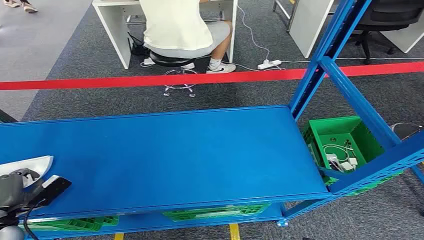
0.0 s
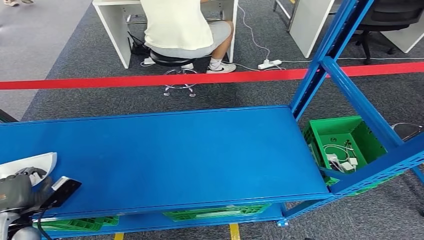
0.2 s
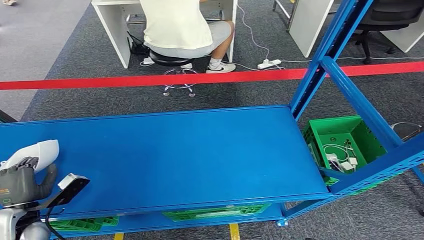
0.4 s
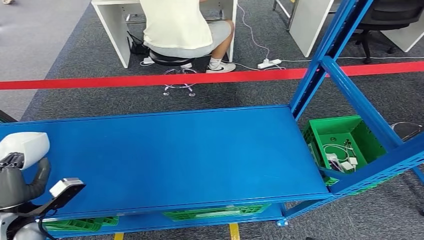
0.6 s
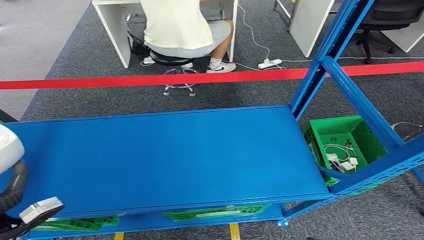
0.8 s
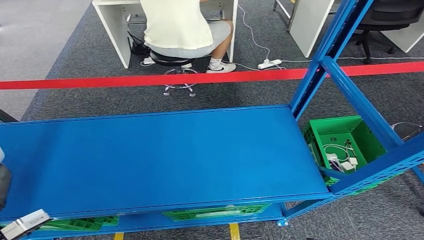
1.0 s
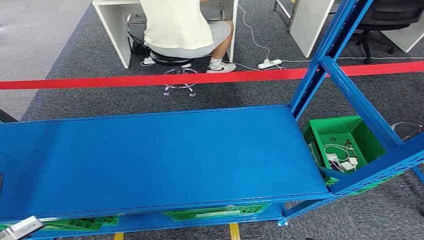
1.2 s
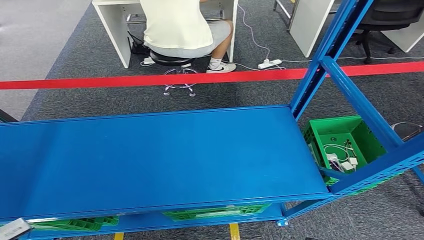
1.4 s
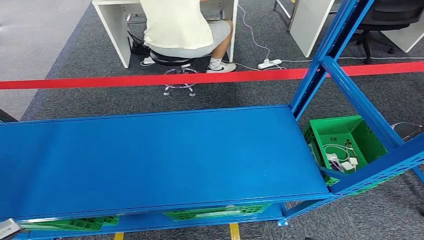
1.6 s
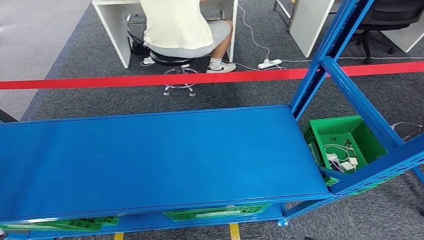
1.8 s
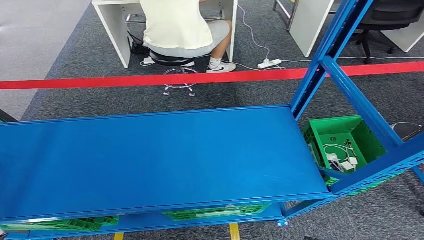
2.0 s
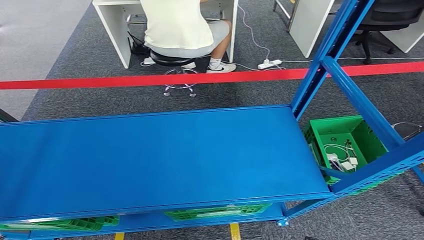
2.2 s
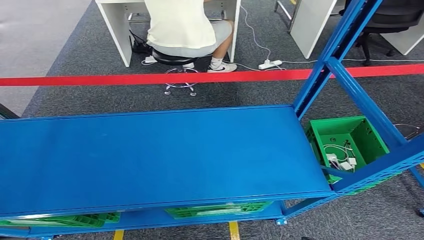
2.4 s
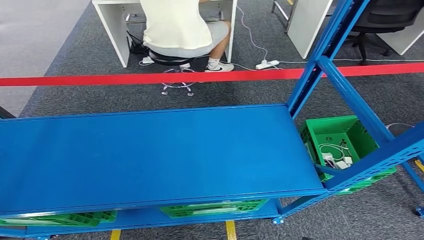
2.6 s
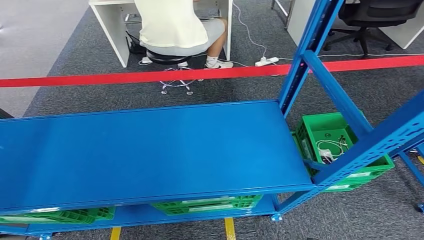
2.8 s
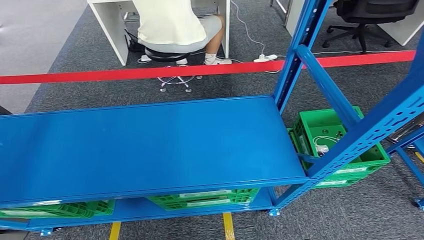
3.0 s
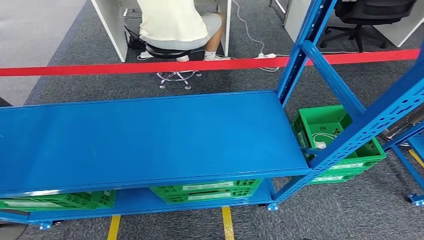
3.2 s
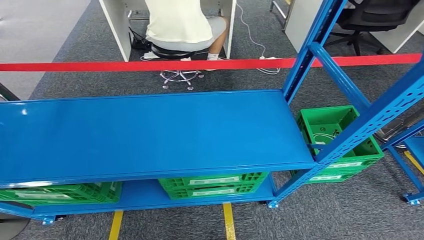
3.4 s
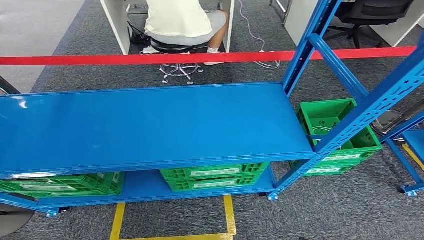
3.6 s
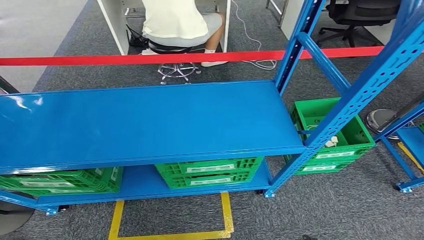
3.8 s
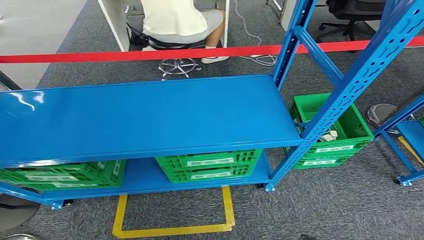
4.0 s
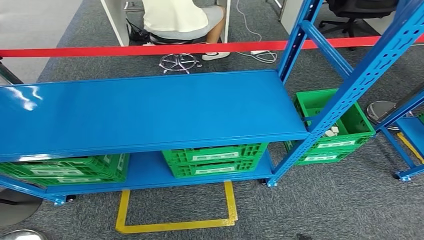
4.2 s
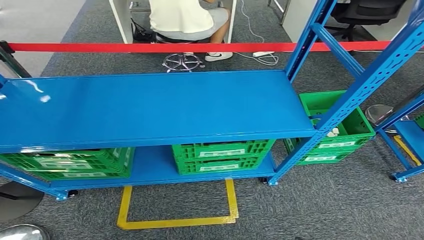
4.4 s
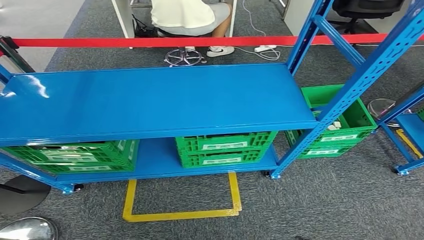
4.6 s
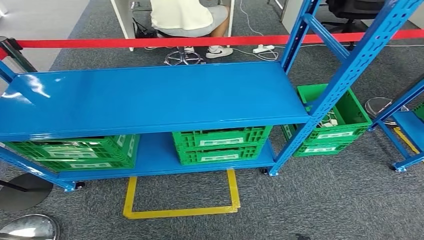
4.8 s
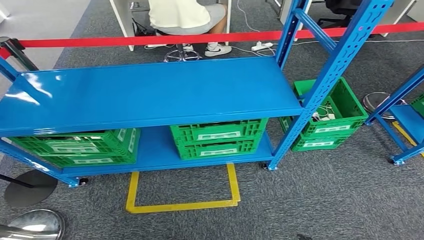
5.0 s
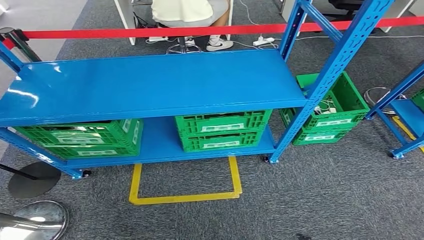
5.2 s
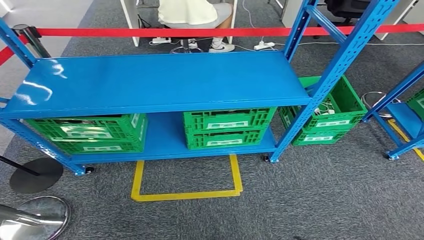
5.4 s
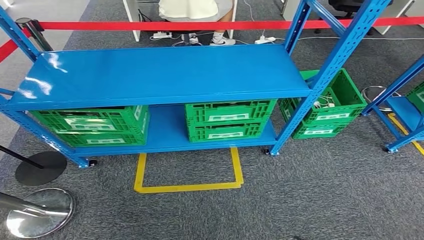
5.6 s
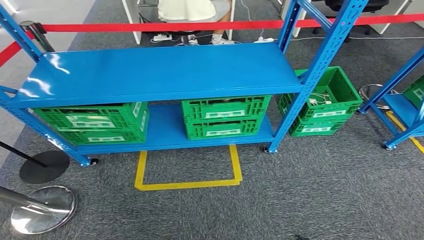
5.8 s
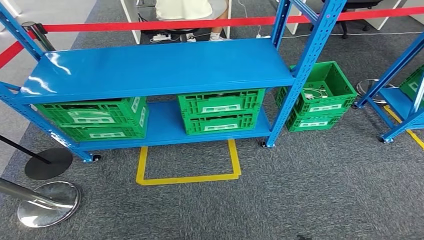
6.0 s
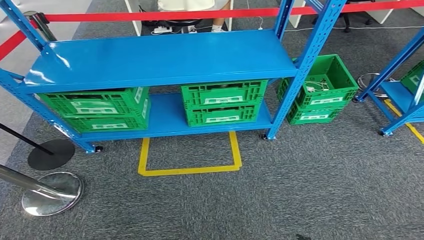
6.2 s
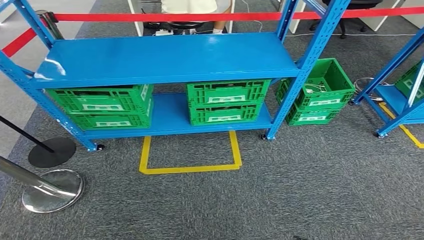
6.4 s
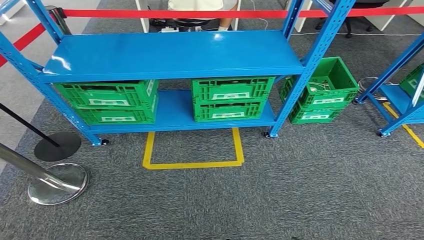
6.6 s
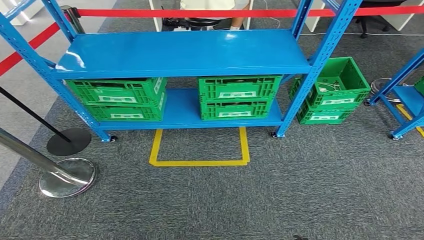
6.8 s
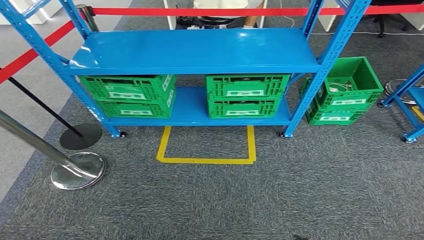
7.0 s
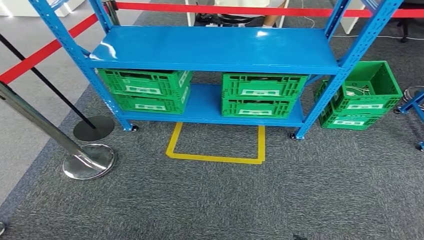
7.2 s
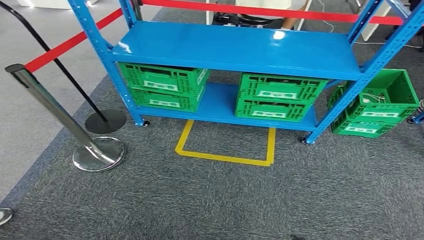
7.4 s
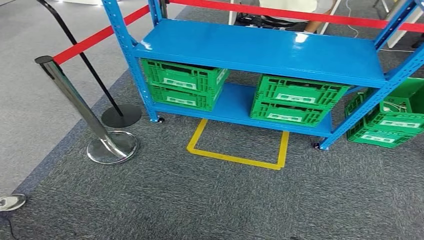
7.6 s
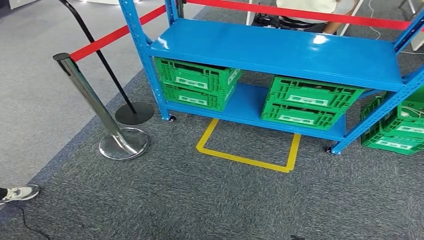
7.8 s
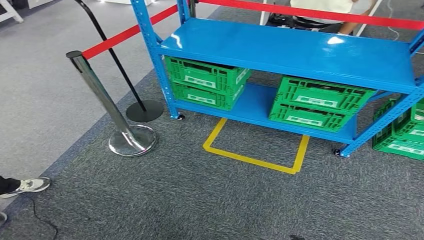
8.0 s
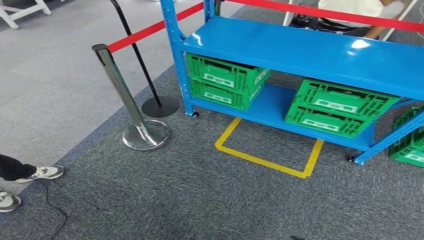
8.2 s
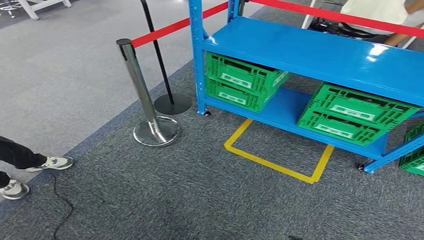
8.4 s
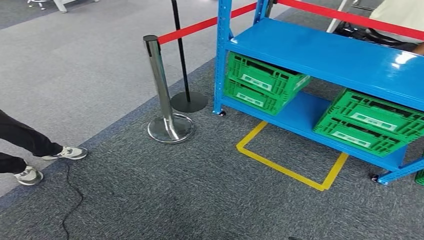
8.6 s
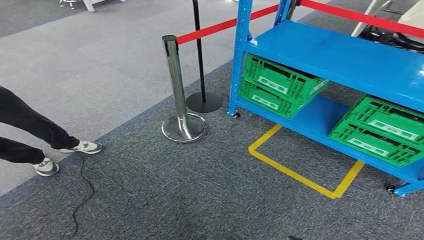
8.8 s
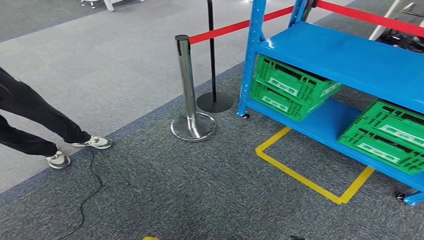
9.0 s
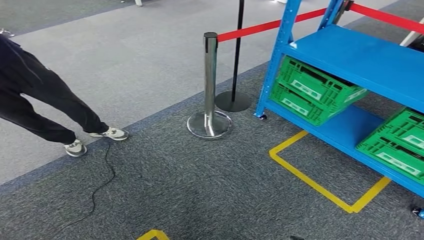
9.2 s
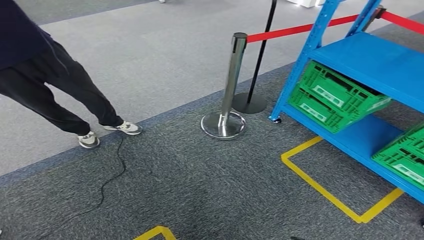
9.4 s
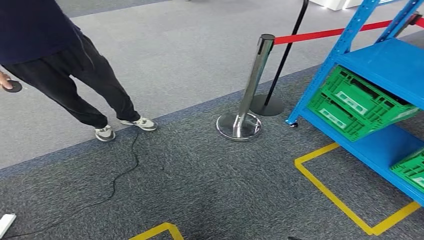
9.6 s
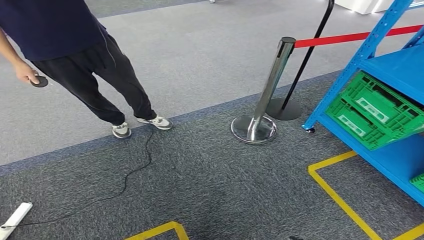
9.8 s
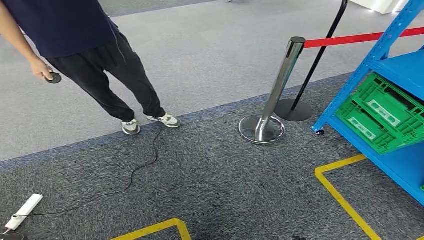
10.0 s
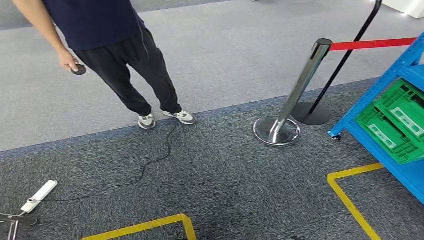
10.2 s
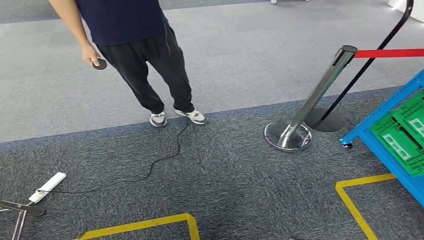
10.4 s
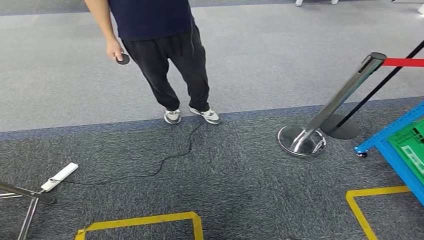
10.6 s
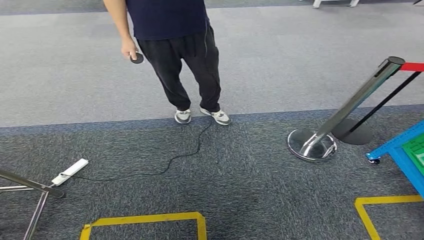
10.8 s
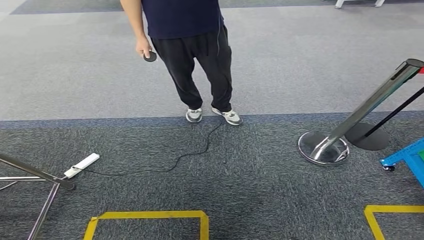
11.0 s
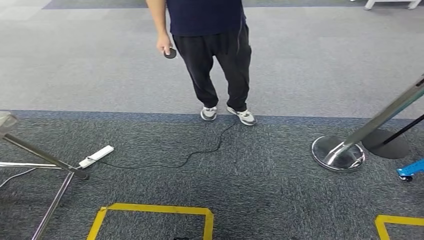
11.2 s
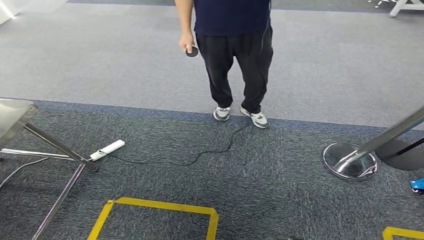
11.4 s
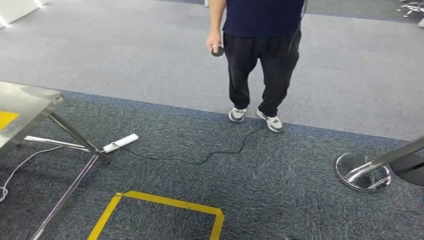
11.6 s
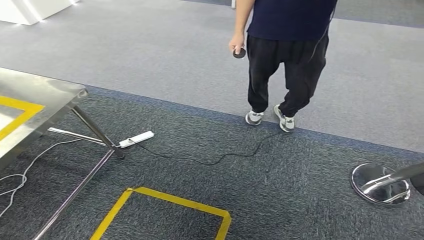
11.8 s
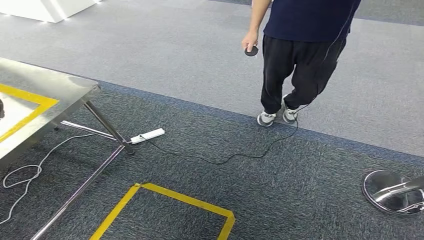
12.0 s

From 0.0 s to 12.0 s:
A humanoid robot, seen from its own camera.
Step, from 0.0 s to 3.2 s: Pick up the small component from the shelf.

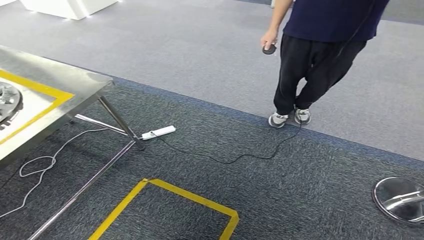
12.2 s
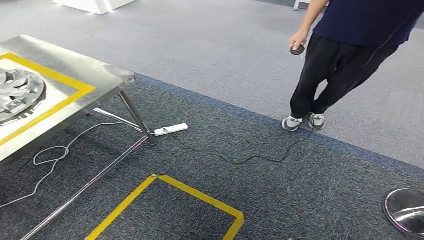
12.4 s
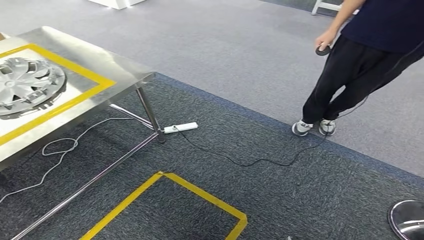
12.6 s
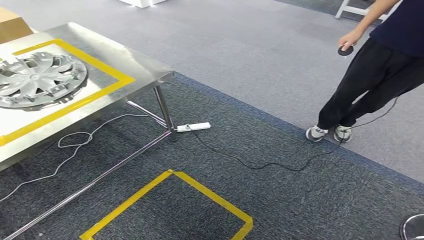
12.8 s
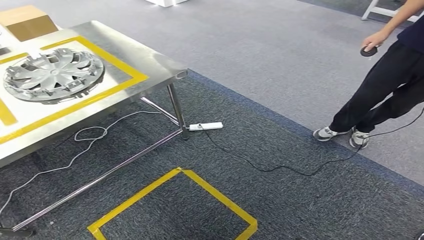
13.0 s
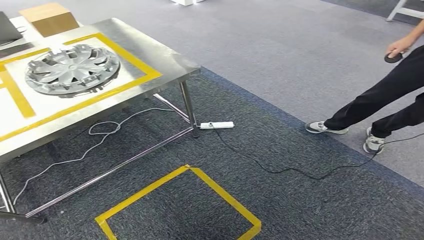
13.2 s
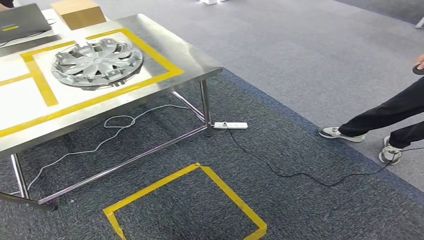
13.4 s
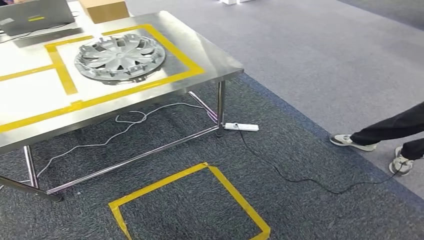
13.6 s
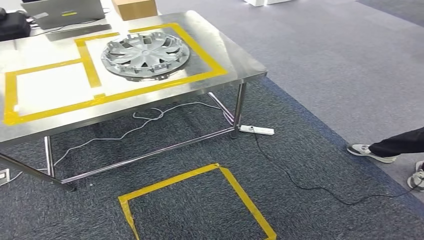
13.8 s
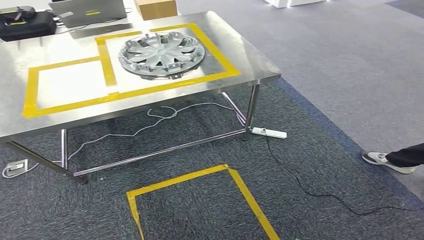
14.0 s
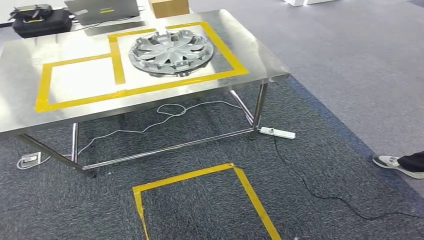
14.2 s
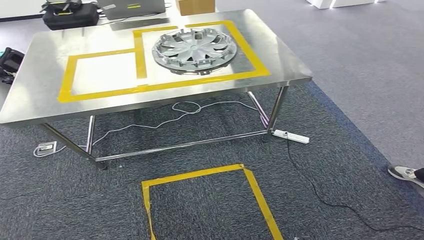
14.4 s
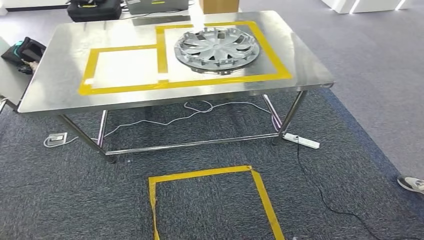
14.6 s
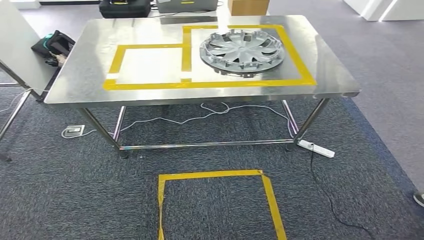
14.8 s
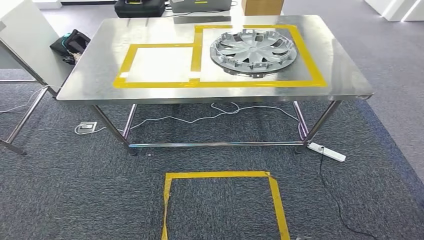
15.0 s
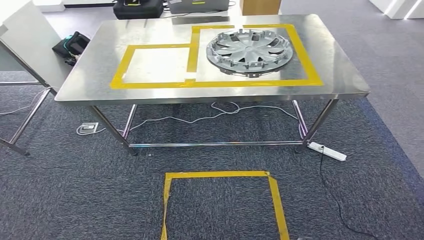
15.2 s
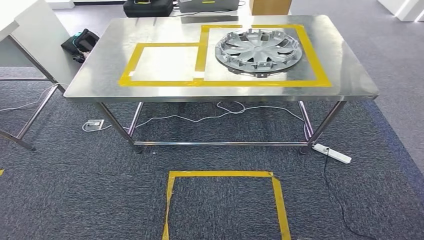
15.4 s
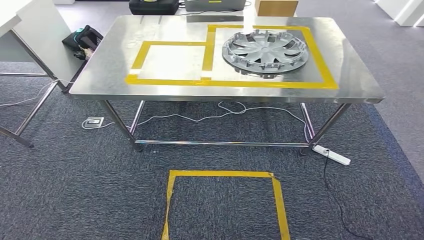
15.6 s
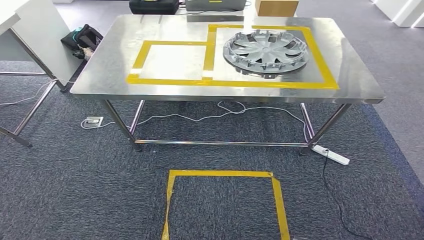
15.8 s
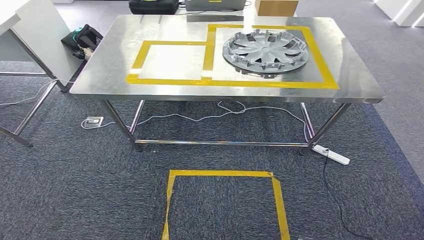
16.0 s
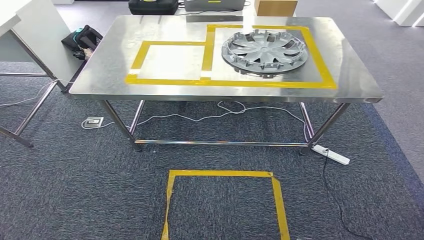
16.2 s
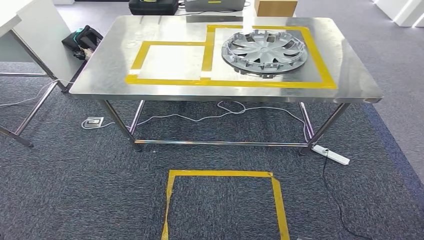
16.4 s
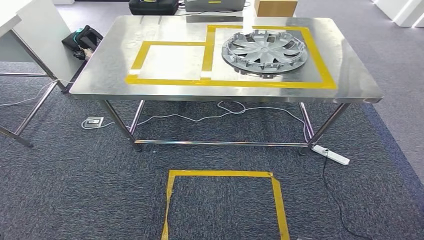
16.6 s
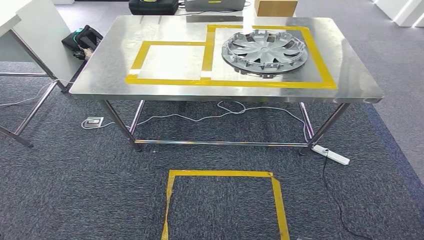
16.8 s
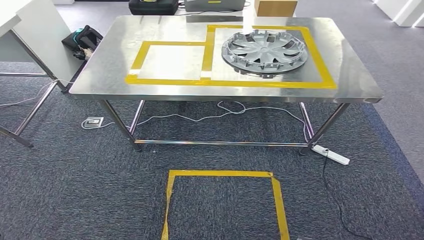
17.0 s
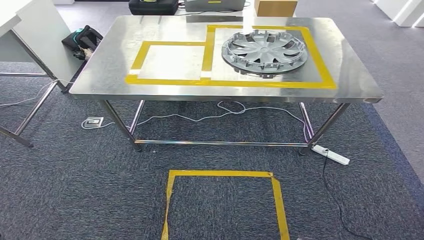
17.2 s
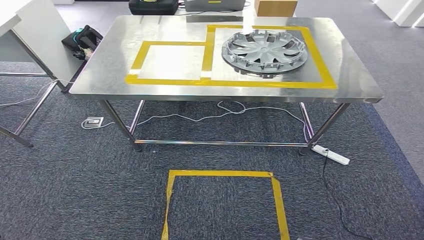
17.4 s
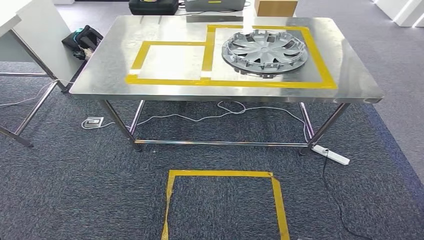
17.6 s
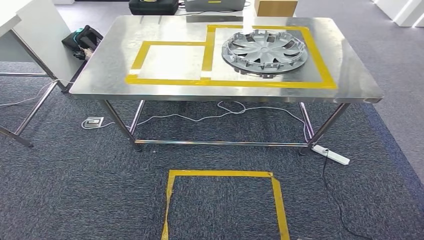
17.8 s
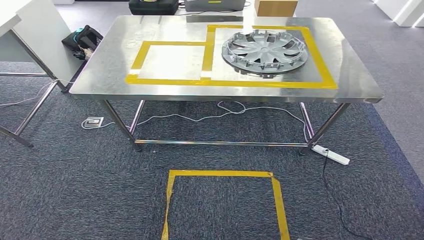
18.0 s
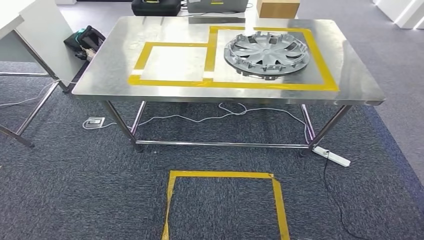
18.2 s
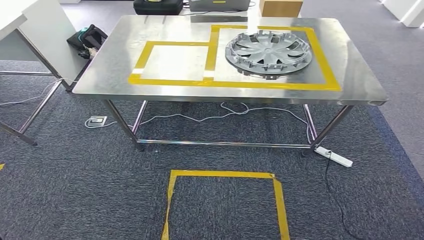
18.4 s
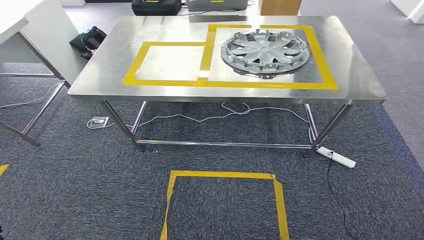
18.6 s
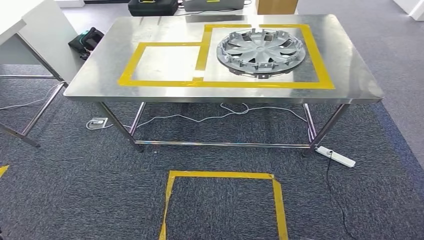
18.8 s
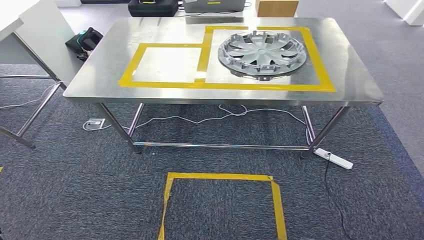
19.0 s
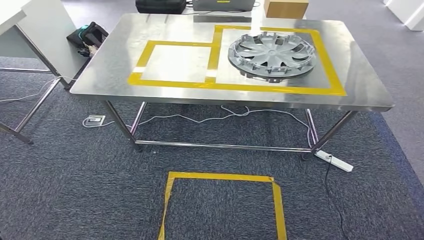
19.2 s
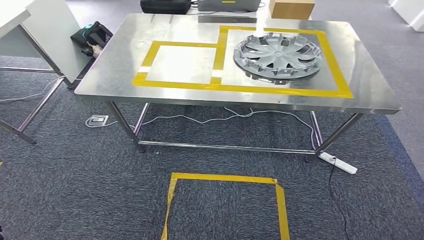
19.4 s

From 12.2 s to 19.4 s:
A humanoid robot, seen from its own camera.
From 16.6 s to 18.0 s: Both hands stay put.
